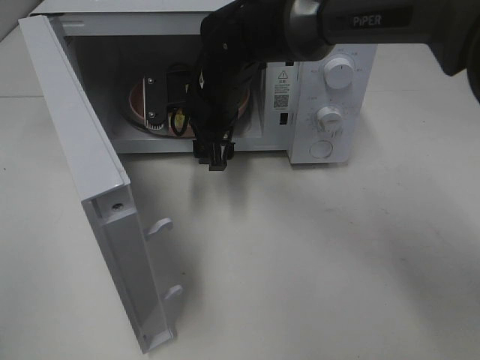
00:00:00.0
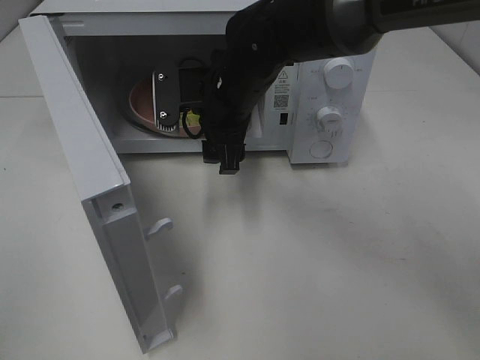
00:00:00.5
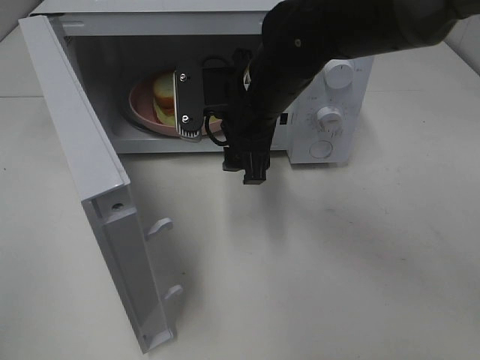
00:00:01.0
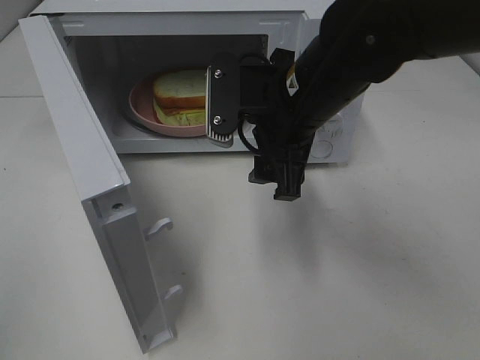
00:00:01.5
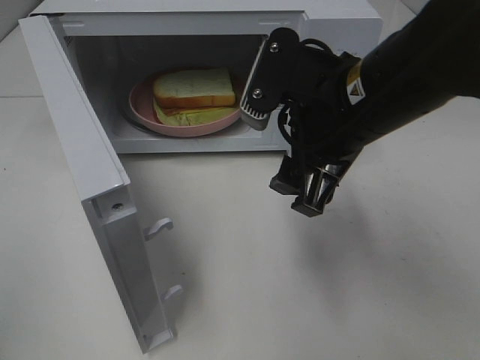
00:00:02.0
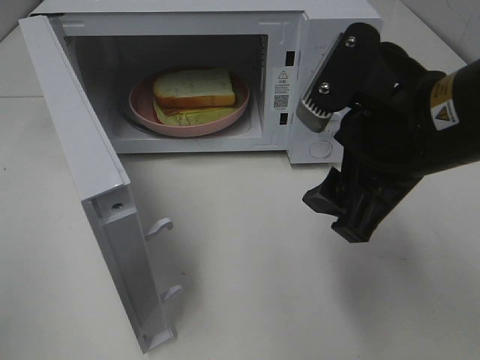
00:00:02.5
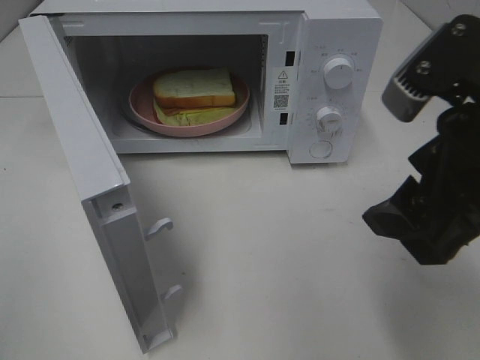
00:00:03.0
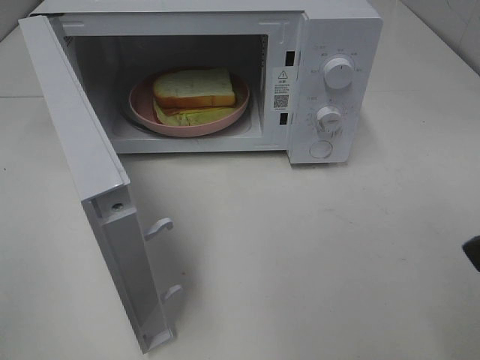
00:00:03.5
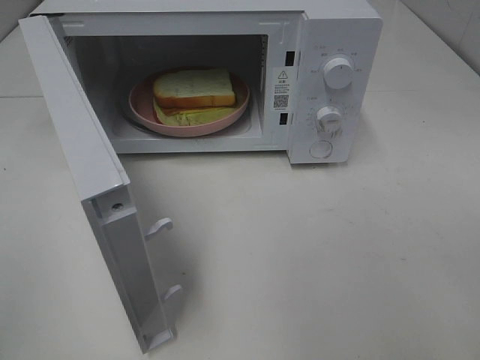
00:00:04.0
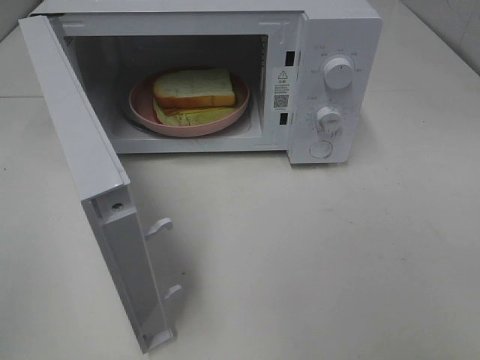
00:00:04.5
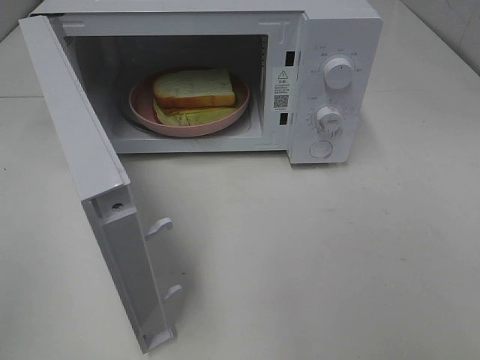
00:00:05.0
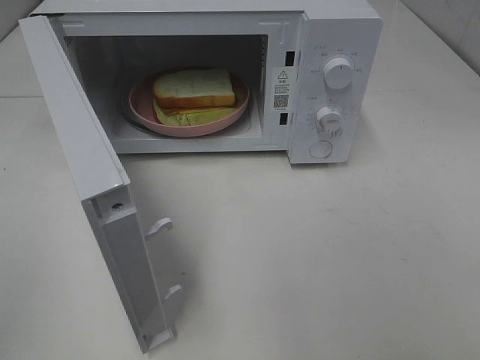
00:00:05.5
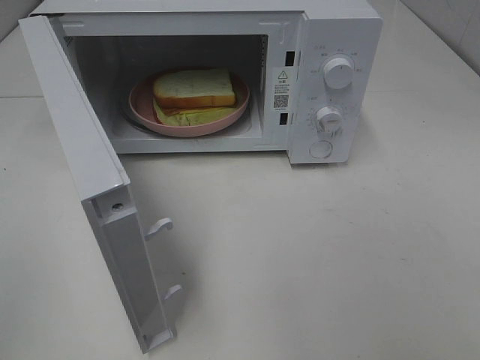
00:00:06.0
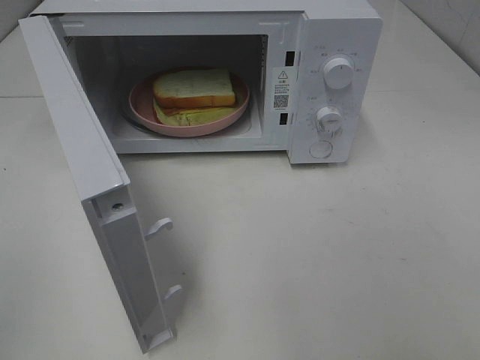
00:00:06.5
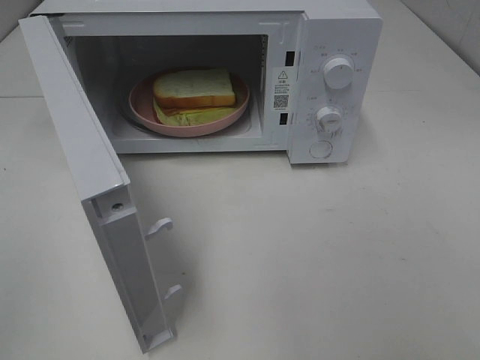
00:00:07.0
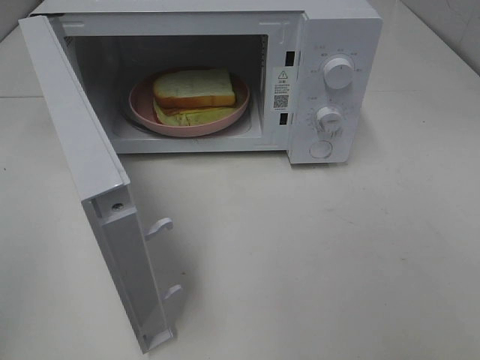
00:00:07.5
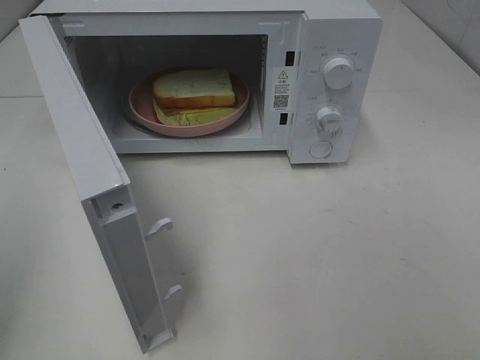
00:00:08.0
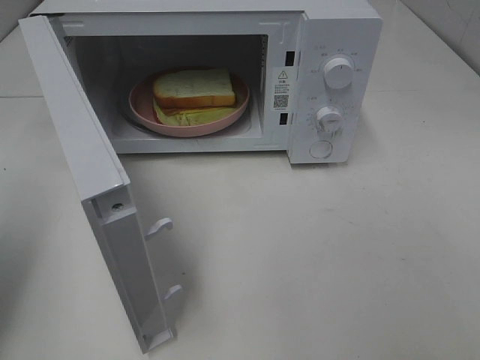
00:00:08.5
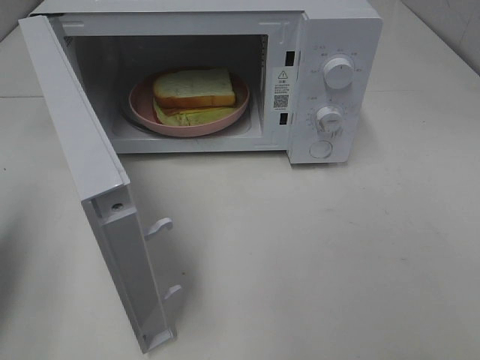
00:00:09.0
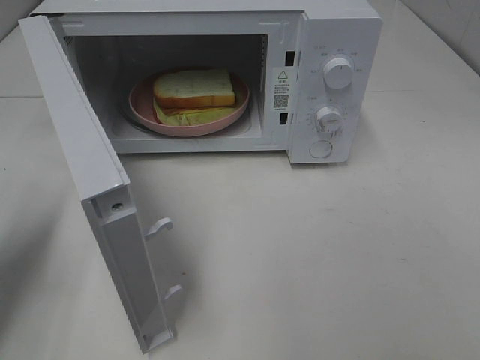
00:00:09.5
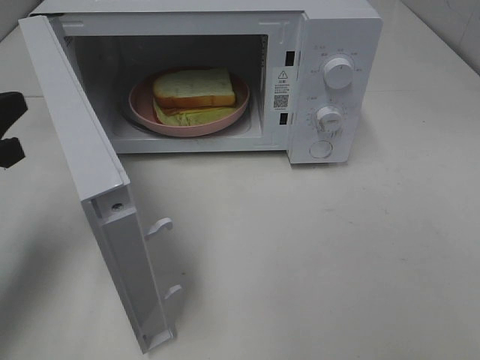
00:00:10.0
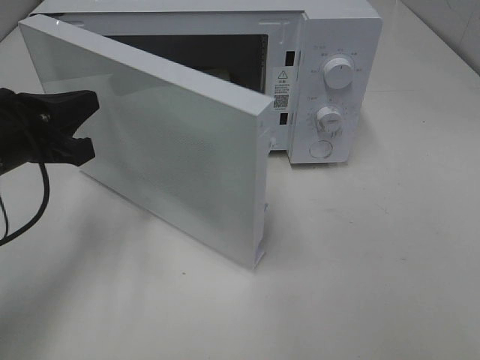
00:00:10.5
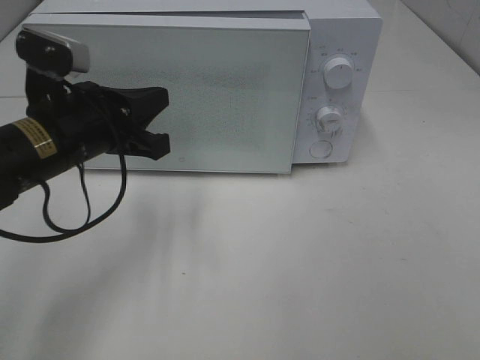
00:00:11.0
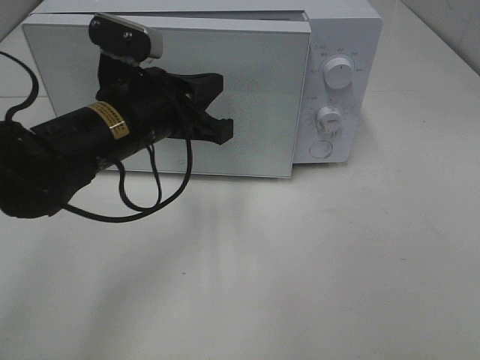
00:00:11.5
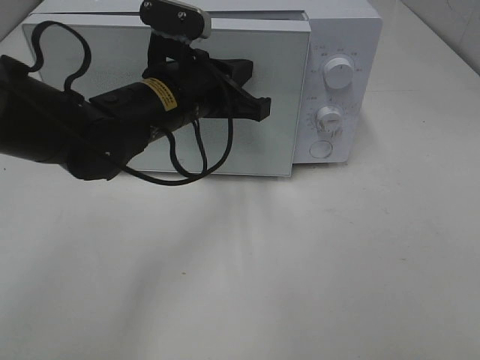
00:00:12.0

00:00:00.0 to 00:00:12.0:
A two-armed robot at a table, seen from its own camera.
Task of the whole recording: Heat Sandwich.
00:00:00.0 to 00:00:02.0: The right gripper heads backward, to the right and upward, covering some 20 cm.
00:00:02.0 to 00:00:04.0: The right gripper goes approximately 20 cm backward and to the right.
00:00:08.0 to 00:00:10.0: The left gripper moves forward and downward, roughly 20 cm.
00:00:10.0 to 00:00:12.0: The left gripper heads to the right and forward, covering some 25 cm.

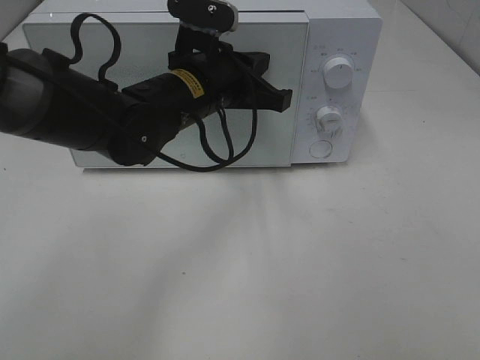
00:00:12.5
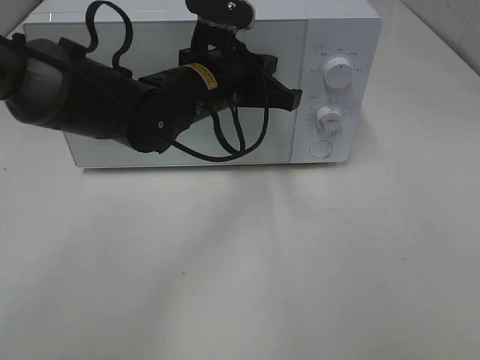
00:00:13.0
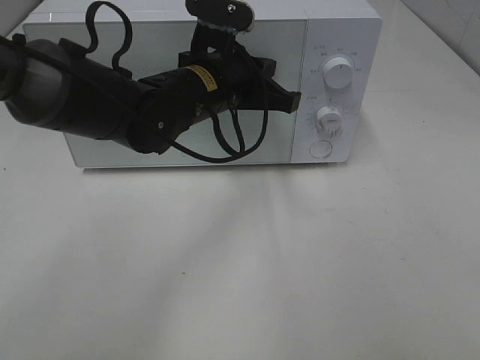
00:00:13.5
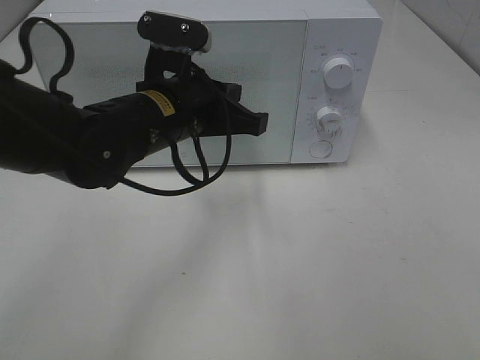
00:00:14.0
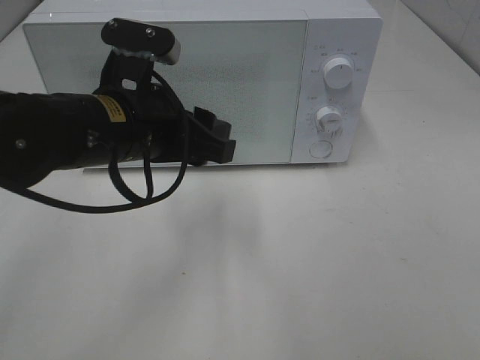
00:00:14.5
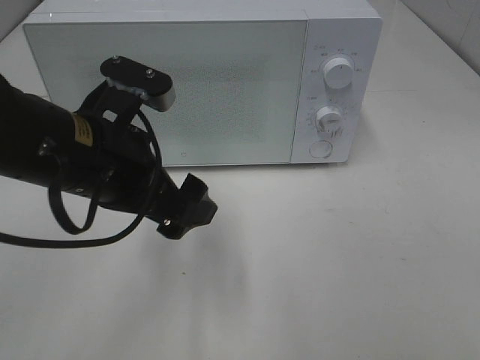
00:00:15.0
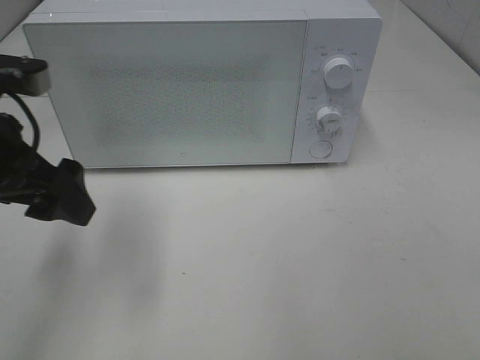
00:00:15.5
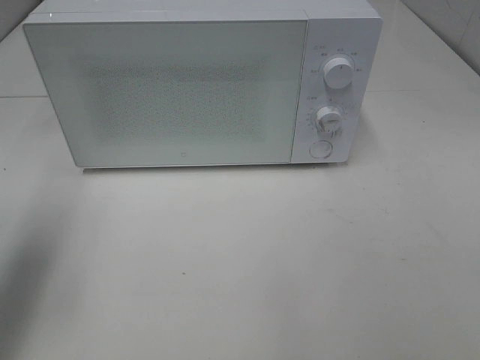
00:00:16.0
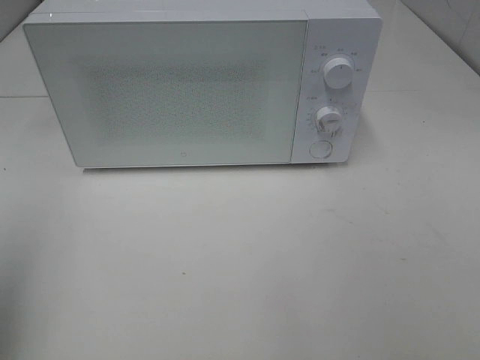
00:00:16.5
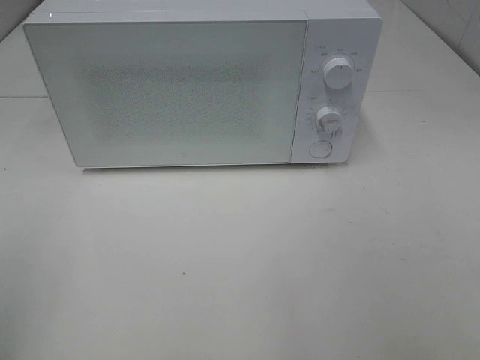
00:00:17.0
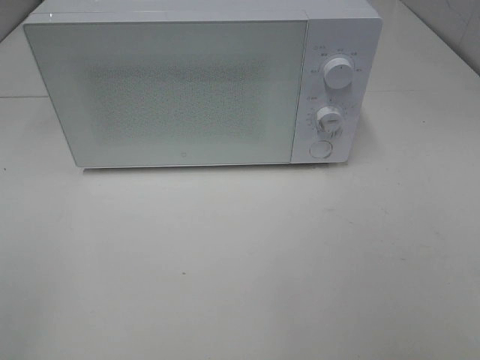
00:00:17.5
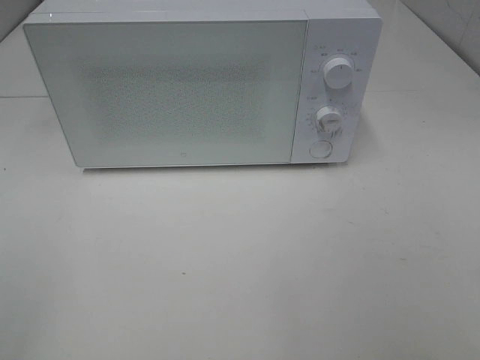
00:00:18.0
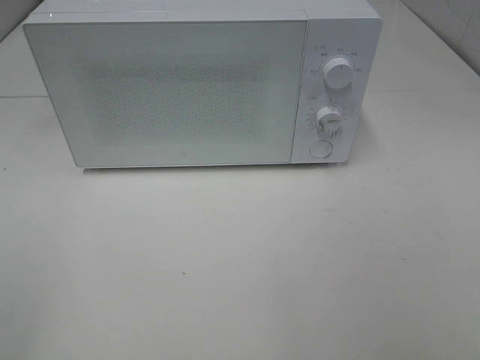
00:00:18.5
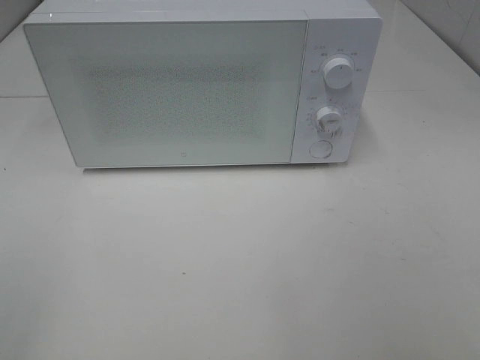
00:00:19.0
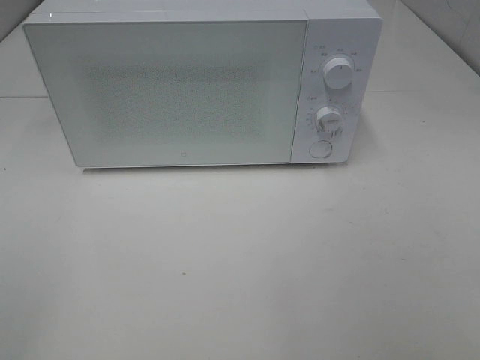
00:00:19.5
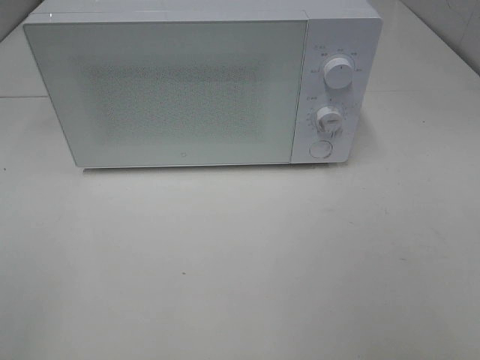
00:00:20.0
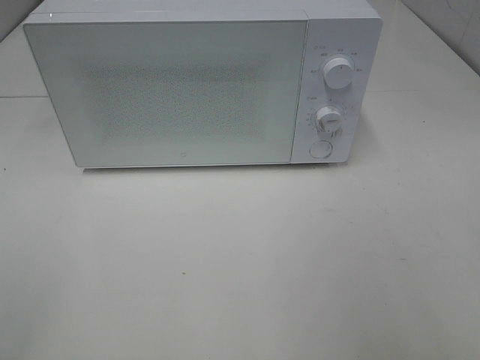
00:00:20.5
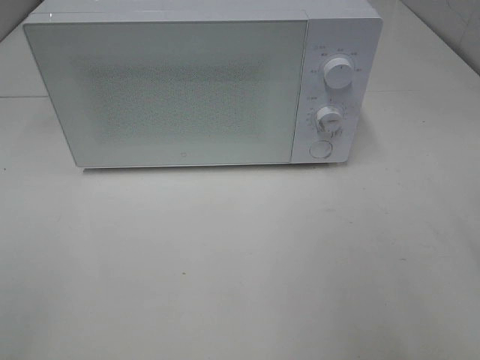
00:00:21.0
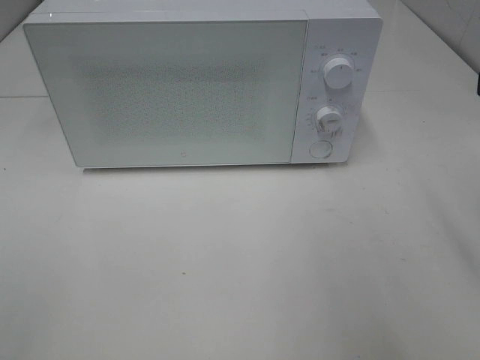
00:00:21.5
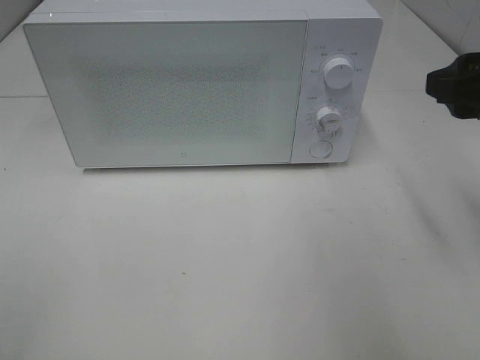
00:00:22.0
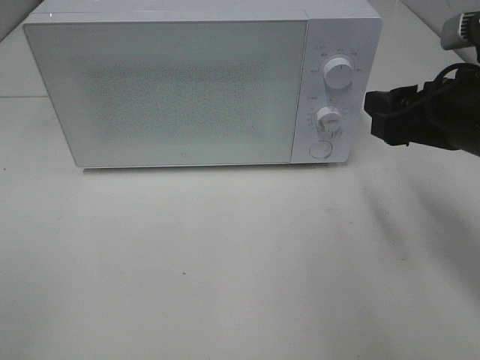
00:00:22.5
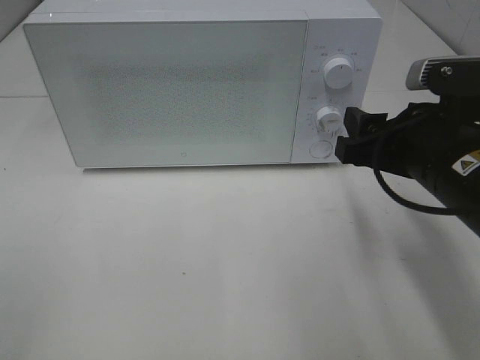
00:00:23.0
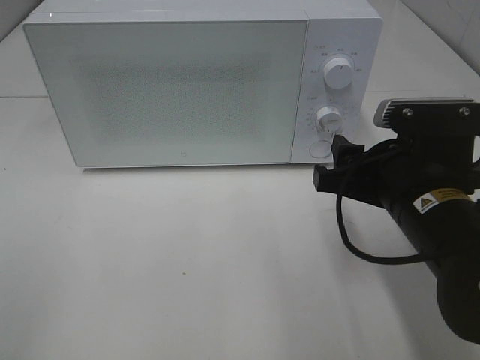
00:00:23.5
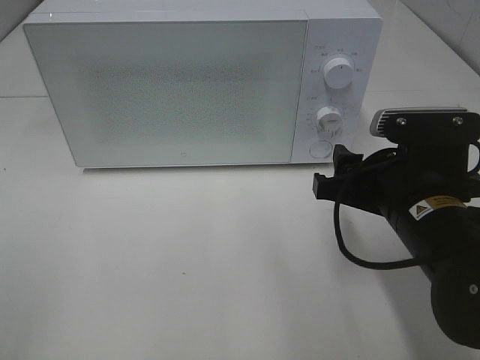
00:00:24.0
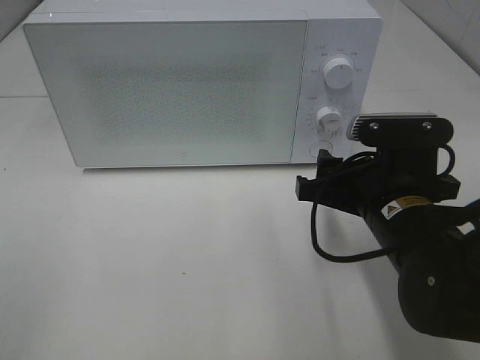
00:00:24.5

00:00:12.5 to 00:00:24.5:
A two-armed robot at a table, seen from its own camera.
Task of the whole recording: Heat Sandwich.
00:00:12.5 to 00:00:14.5: The left gripper heads backward and to the left, covering about 10 cm, and opens its fingers.
00:00:14.5 to 00:00:16.5: The left gripper is displaced to the left, backward and upward by about 30 cm.
00:00:16.5 to 00:00:18.5: The left gripper moves backward, roughly 10 cm.
00:00:20.5 to 00:00:22.5: The right gripper goes roughly 20 cm forward, downward and to the left.
00:00:22.5 to 00:00:24.5: The right gripper travels downward and to the left by some 10 cm.

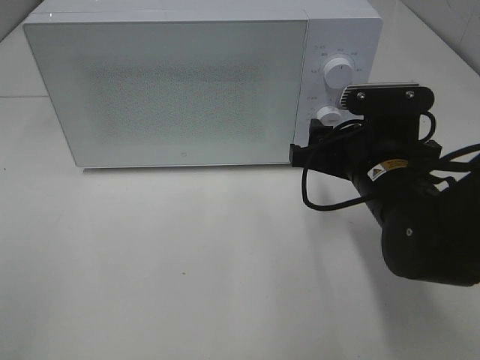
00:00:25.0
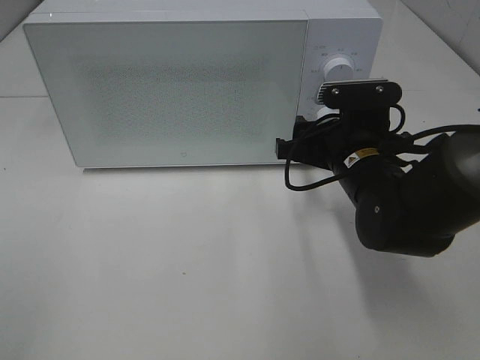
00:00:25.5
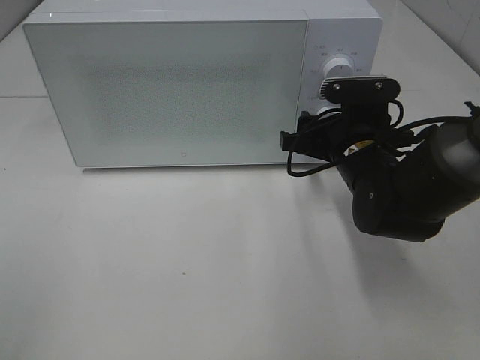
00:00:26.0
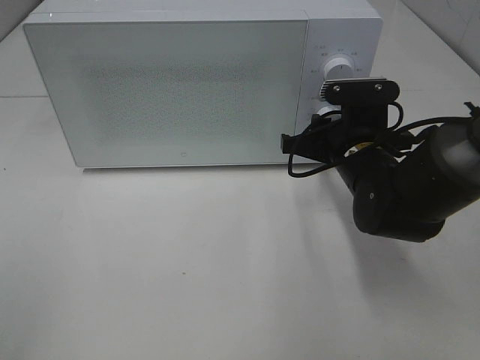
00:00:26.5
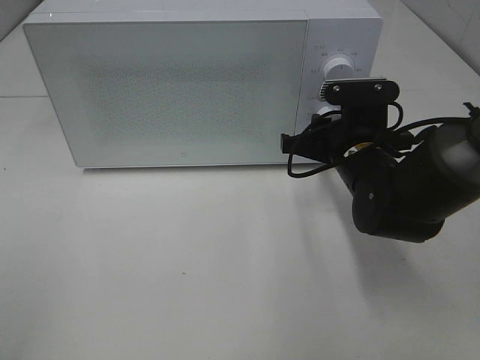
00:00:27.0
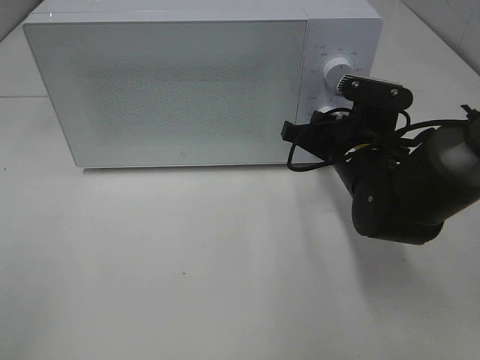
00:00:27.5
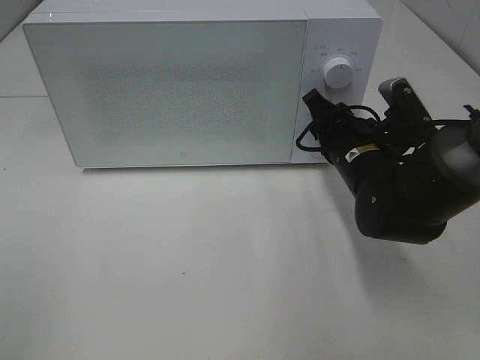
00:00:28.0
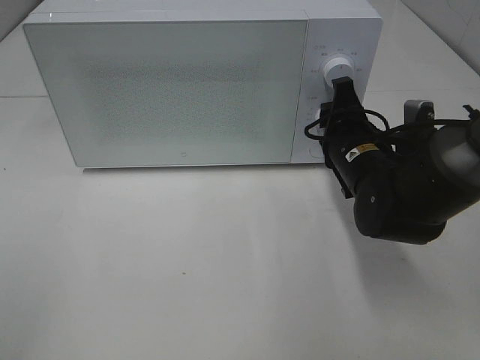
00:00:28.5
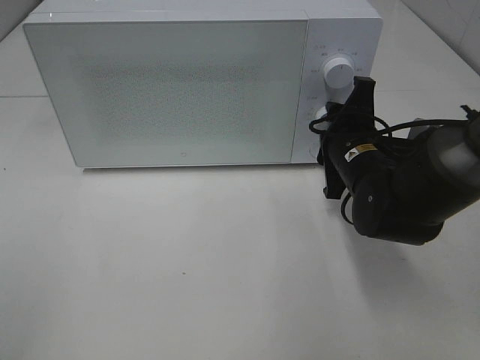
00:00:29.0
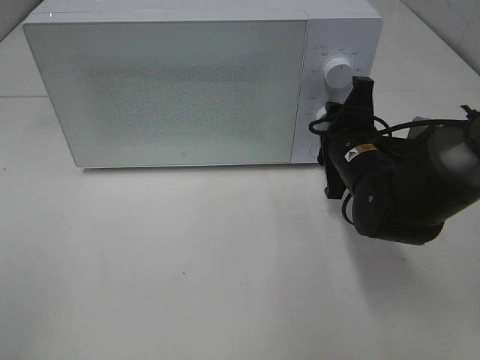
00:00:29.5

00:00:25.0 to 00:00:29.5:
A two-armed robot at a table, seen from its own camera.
Task of the whole recording: Heat Sandwich.
00:00:25.0 to 00:00:27.0: The right gripper heads forward, covering some 5 cm, and closes.
